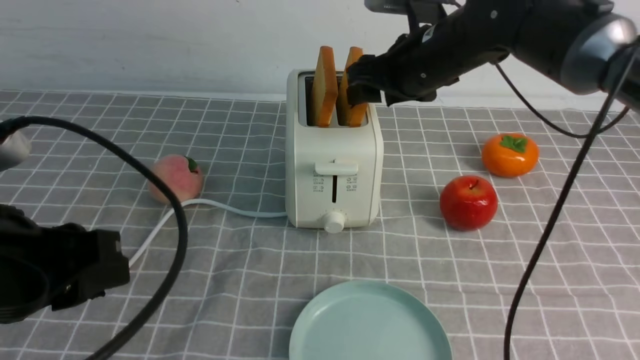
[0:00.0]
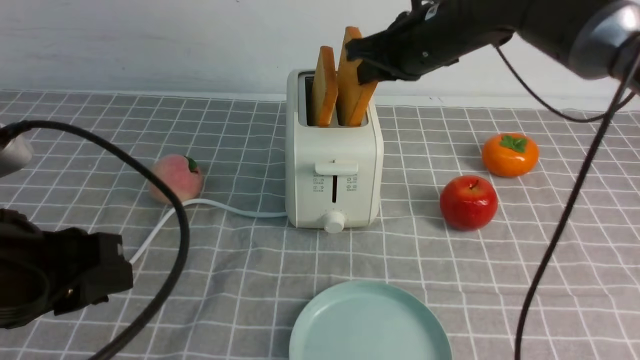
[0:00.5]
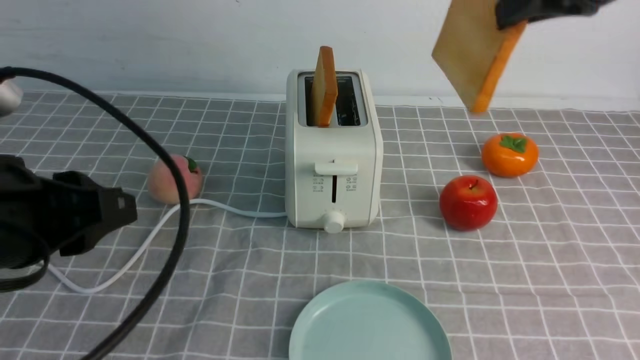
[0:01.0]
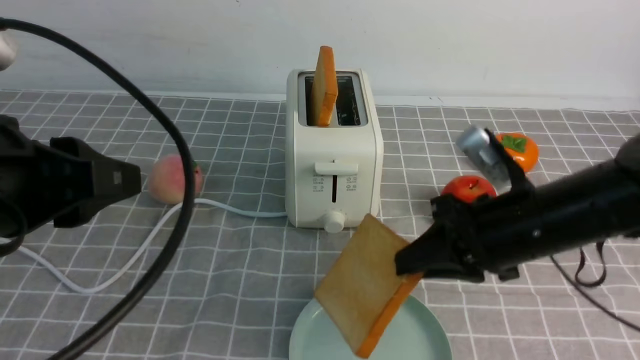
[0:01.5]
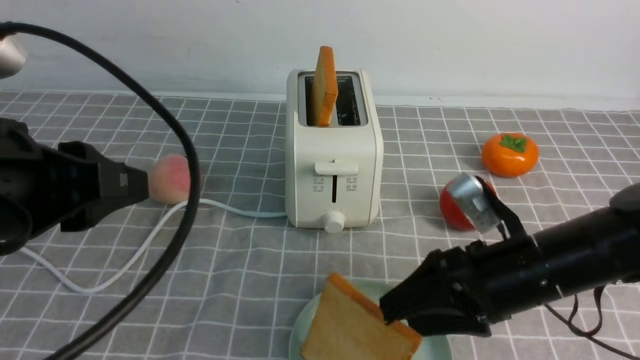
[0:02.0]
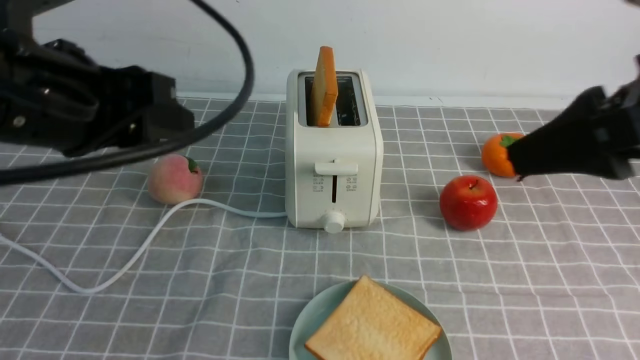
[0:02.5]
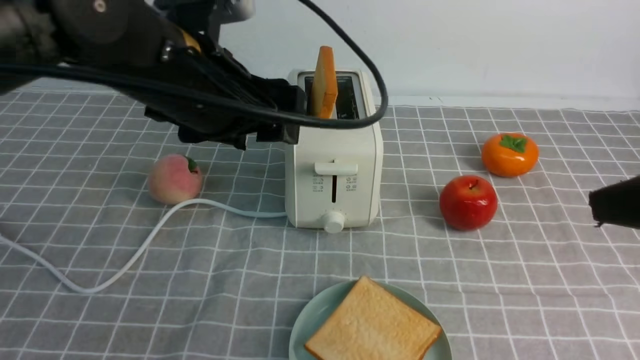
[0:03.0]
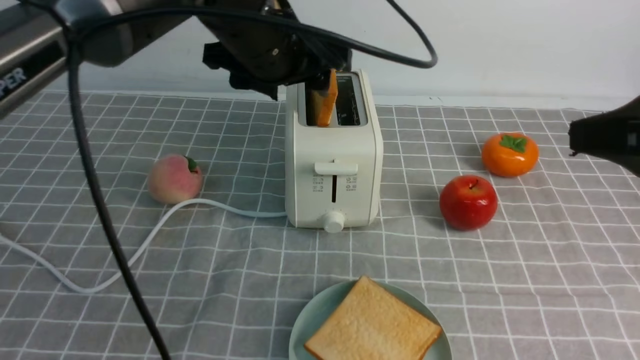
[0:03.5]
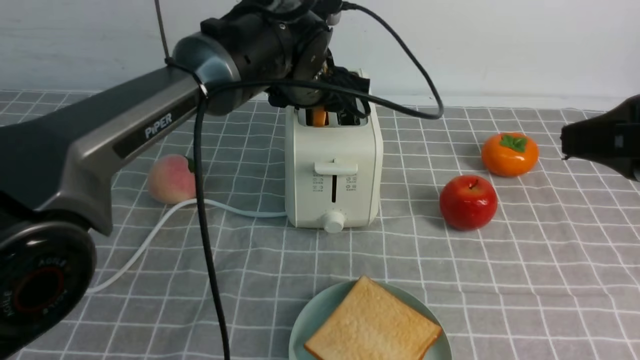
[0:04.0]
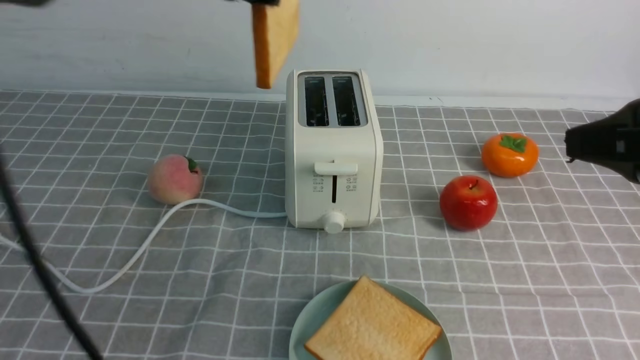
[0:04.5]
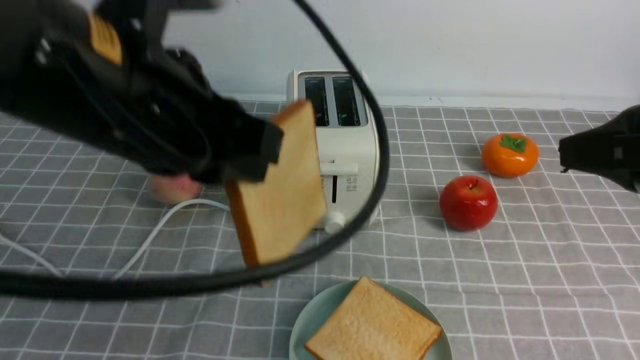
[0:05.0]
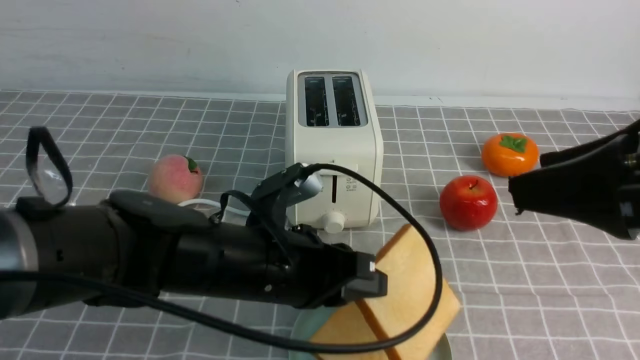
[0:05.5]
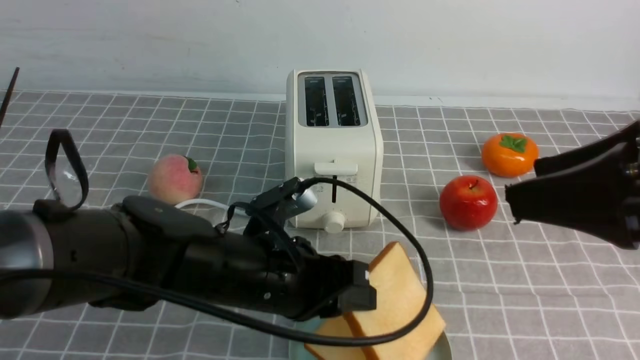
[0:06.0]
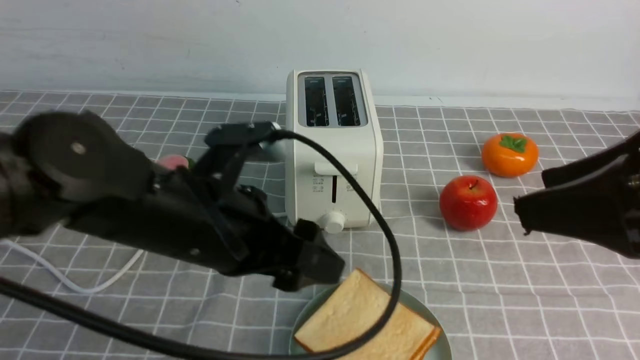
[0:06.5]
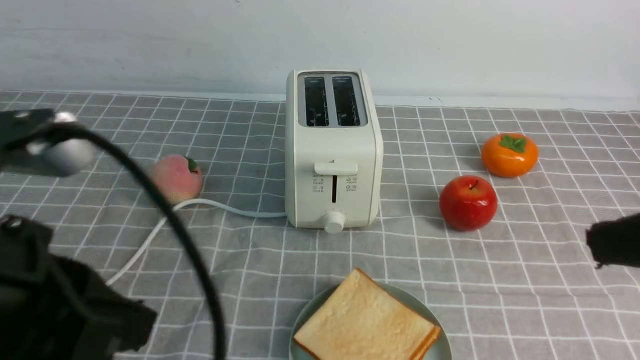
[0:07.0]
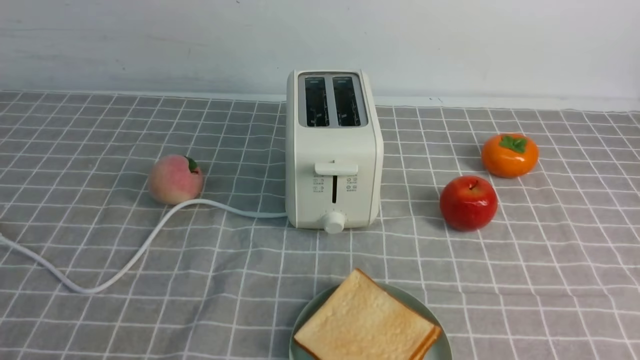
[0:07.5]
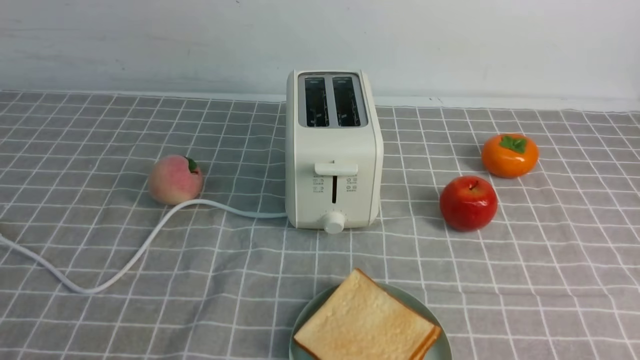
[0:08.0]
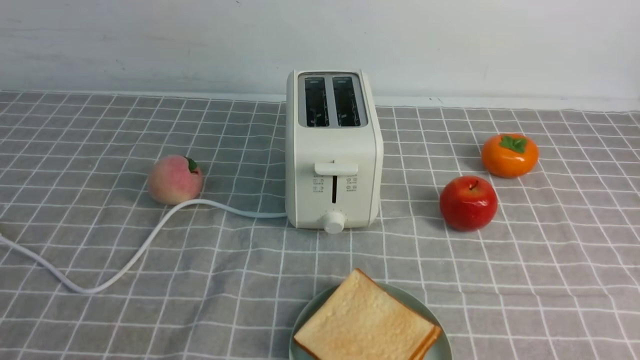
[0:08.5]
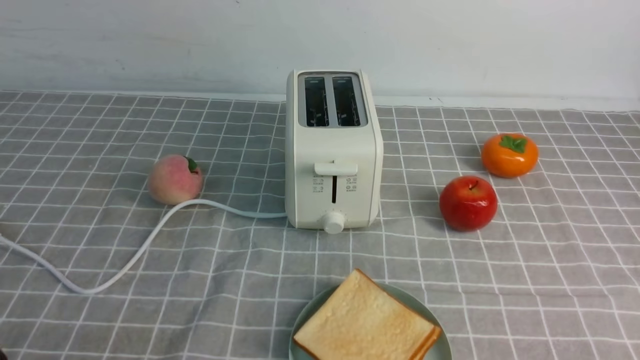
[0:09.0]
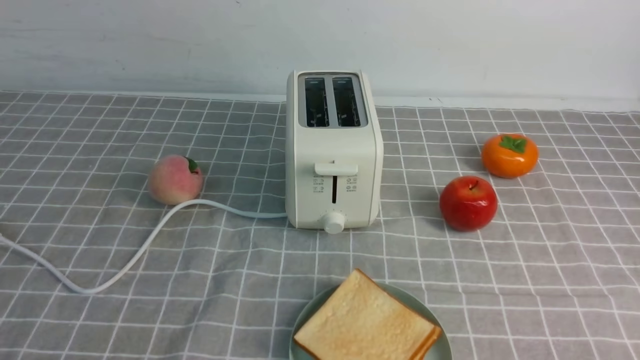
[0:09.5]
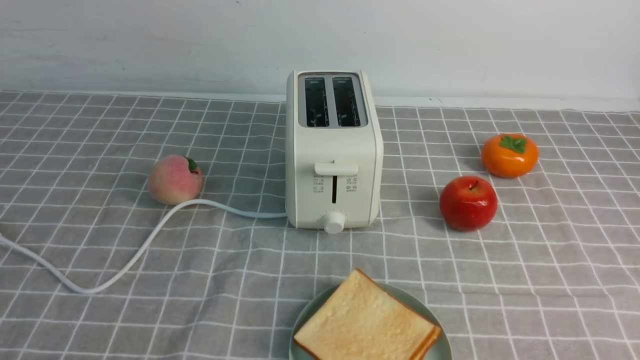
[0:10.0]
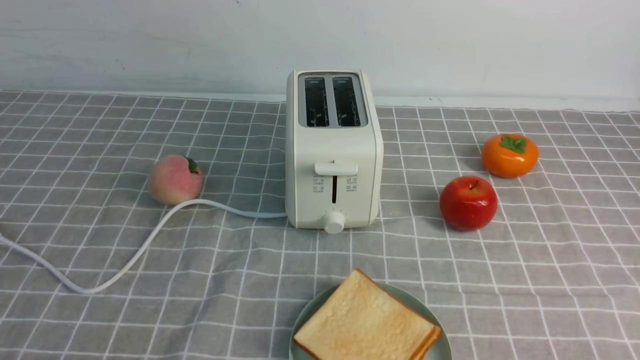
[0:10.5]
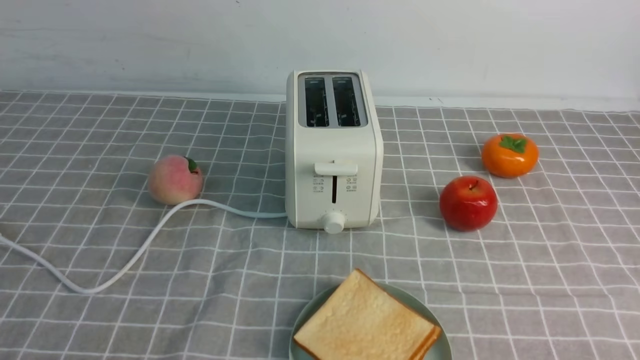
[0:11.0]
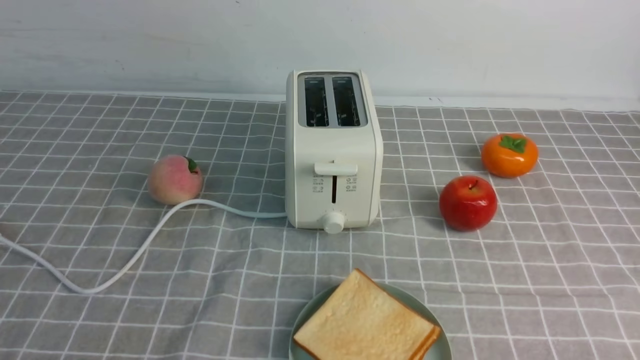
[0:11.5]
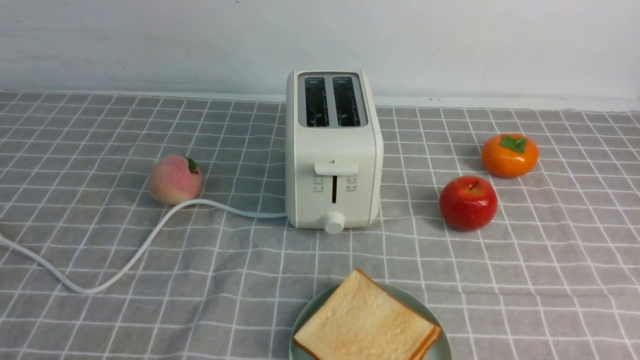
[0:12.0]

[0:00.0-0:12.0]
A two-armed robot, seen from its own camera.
Task of the whole recording: take toasted bread from bread machine on grey coffee table place on plate.
Step, 0:01.0 to 0:02.0: use the right arm to put a slice of bread into the plate.
Step, 0:02.5 to 0:04.0: use the left arm to take out a slice of bread.
Step, 0:04.5 to 0:06.5: use the left arm to put a slice of bread into the empty plate.
0:00.0 to 0:02.0: The right gripper shifts some 20 cm backward and downward, and closes, then opens again.
0:02.0 to 0:04.0: The right gripper heads upward, to the right and backward, covering about 20 cm; the left gripper shifts roughly 30 cm forward and to the right, and opens and closes again.
0:04.0 to 0:06.0: The left gripper travels backward and downward by some 20 cm.
0:06.0 to 0:08.0: The left gripper goes about 35 cm backward, to the left and upward, and closes its fingers, while the right gripper heads downward and backward, covering approximately 20 cm, and closes up.
